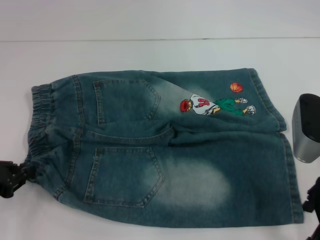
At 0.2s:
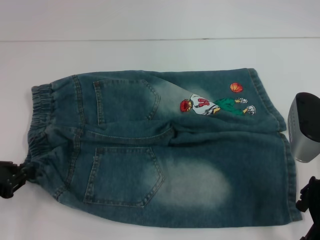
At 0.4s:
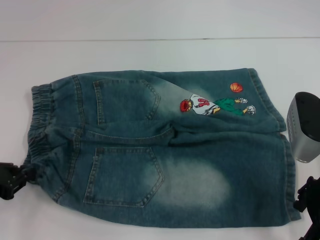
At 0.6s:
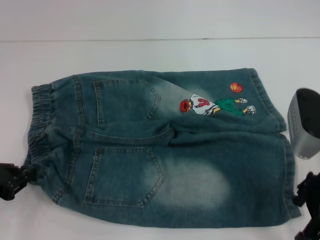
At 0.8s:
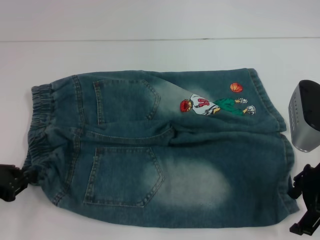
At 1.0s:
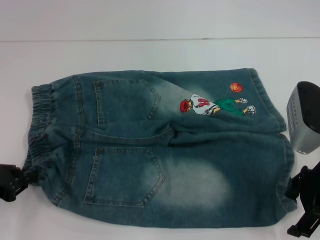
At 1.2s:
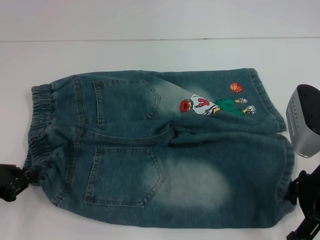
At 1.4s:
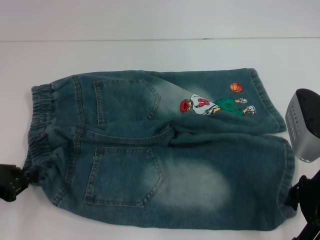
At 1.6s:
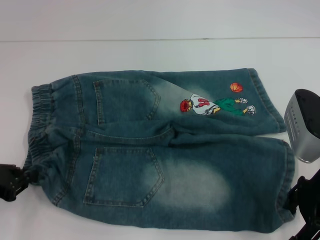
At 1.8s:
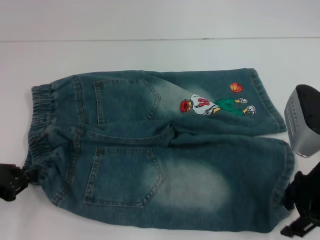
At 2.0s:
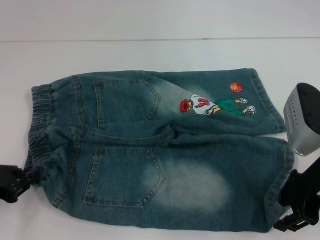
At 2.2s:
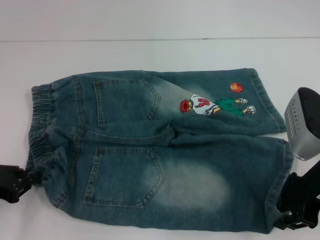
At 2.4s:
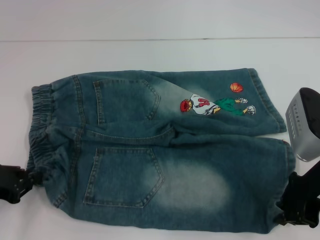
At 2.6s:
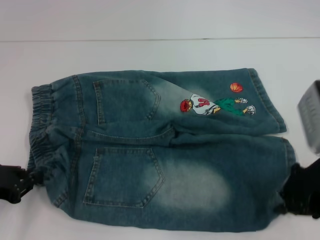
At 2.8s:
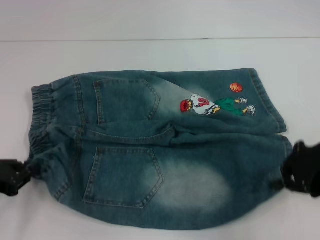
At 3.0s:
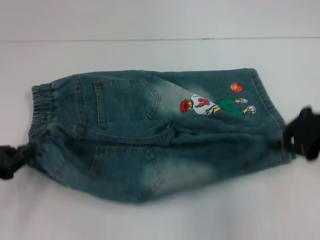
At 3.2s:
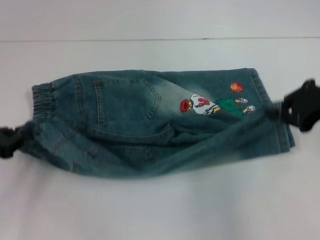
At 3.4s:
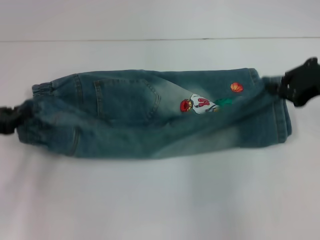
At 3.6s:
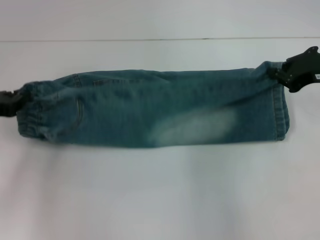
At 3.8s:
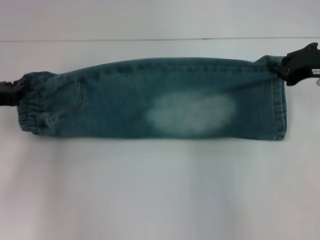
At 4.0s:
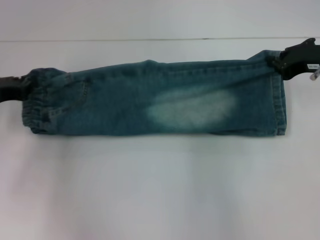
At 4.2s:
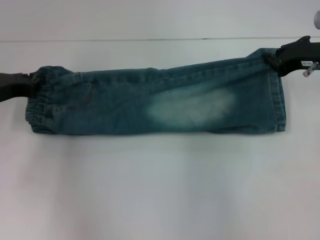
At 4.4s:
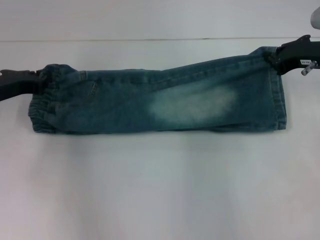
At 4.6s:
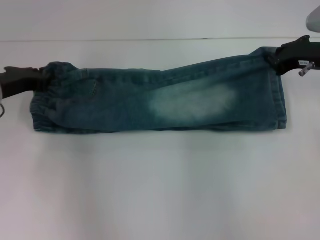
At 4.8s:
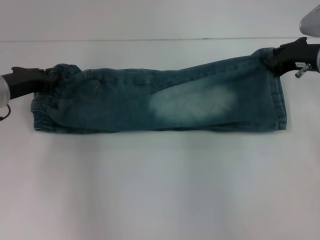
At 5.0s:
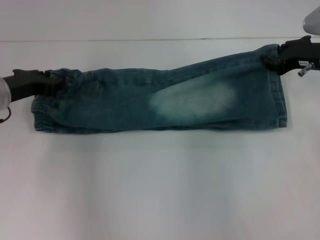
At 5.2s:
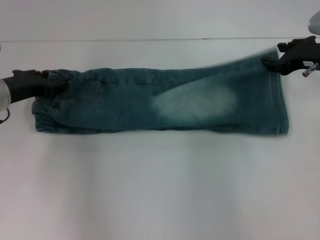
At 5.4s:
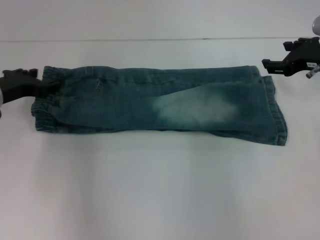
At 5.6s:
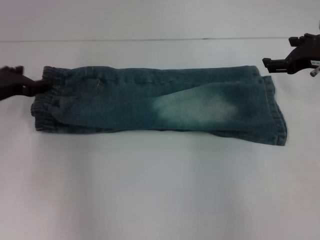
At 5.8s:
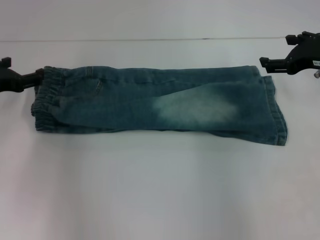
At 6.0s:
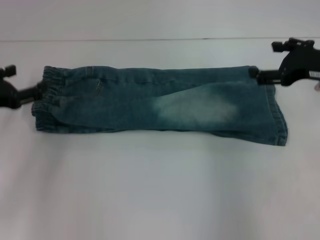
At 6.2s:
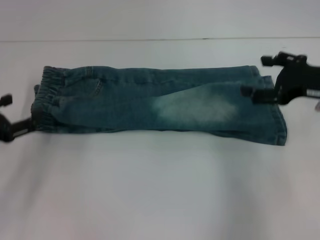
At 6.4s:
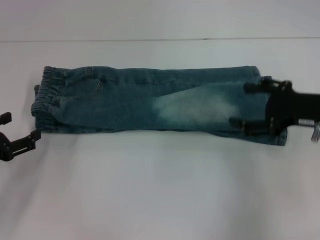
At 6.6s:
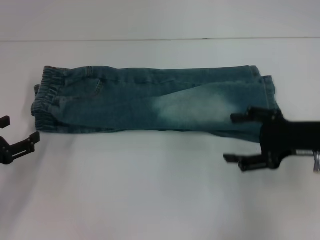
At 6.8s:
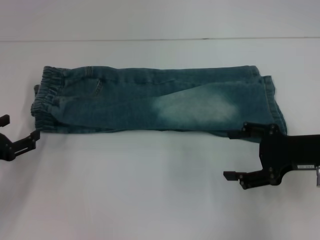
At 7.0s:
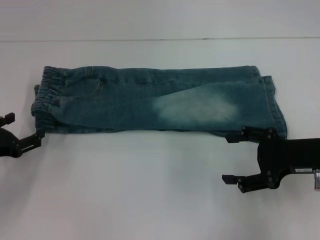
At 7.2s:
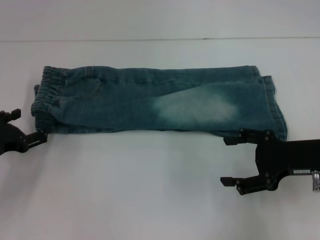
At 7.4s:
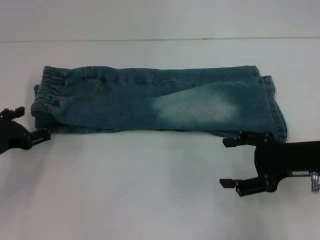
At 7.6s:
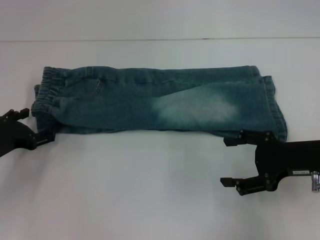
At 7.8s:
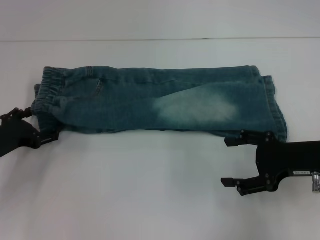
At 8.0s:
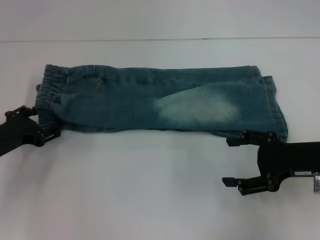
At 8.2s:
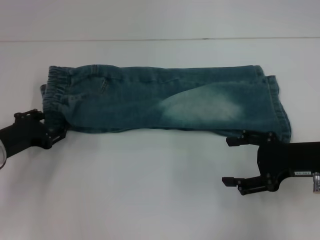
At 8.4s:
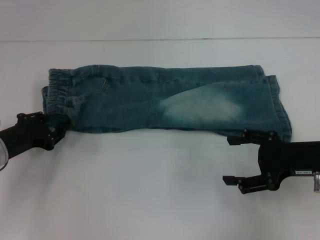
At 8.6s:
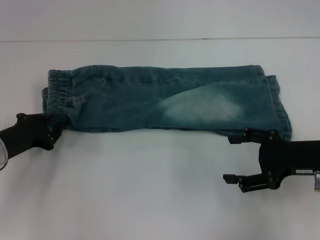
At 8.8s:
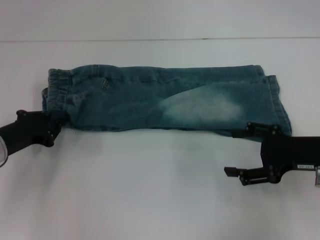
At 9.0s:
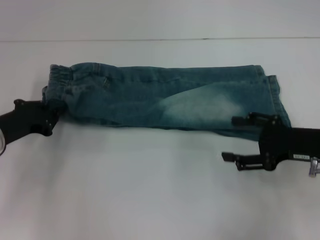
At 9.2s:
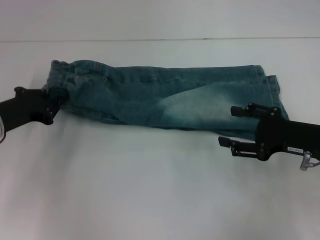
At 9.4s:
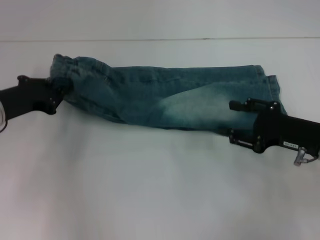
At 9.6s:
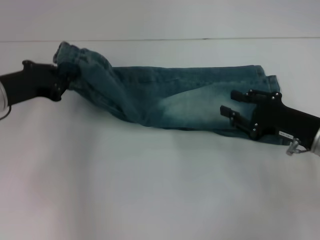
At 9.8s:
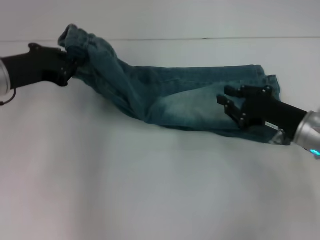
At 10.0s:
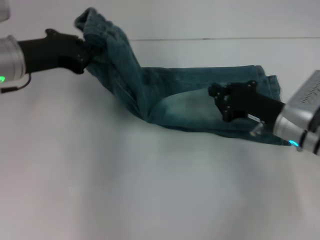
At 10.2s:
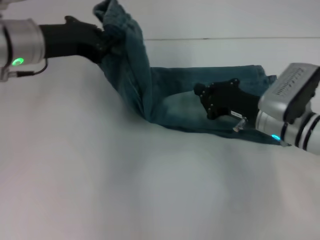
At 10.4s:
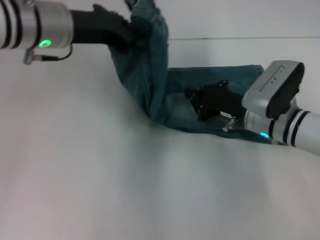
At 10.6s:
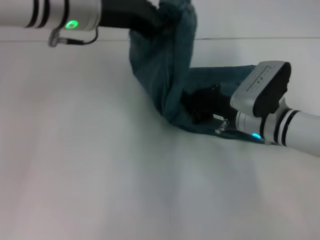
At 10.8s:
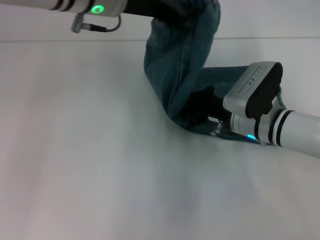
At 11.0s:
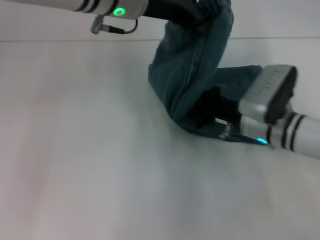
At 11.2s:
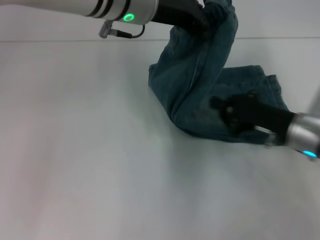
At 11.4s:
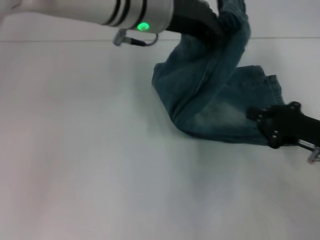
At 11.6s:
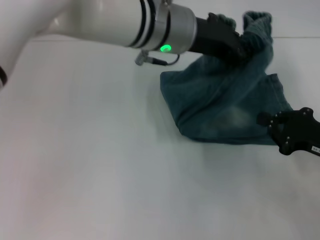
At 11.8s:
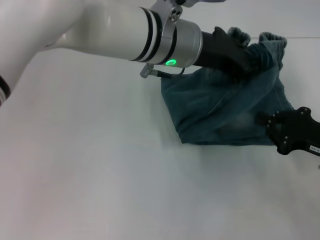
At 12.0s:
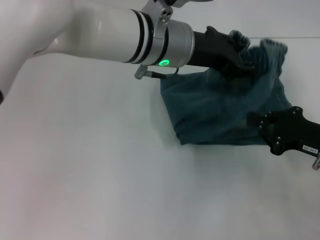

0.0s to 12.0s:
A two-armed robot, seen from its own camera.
Step, 0.0s to 2.2s: Grab the lower right pant leg with your right hand.
Step, 2.4s to 5.2s: Fold upward with your right hand.
Step, 5.4s to 8.8s: Hold the waistband with your left hand.
Step, 9.0s to 10.8s: Press the middle of the pants with your right hand.
0.0s to 1.6s: The grippers move only a little.
1.6s to 3.0s: The right gripper shifts some 5 cm to the right, and closes.
3.0s to 4.4s: The left gripper heads forward and to the right, covering about 15 cm. Meanwhile the right gripper heads forward, covering approximately 10 cm.
4.4s to 6.0s: The left gripper travels backward by about 5 cm, and opens, while the right gripper opens up.
6.0s to 7.6s: The left gripper goes some 10 cm downward. The right gripper moves backward and downward, about 10 cm.
7.6s to 9.0s: The left gripper closes.
9.0s to 10.4s: The left gripper goes some 20 cm upward, to the right and forward; the right gripper is displaced to the left and forward by approximately 10 cm, and closes its fingers.
10.4s to 12.0s: The left gripper moves to the right, some 15 cm, while the right gripper moves to the right and backward, some 15 cm.

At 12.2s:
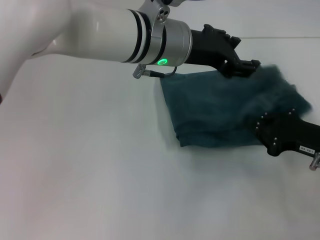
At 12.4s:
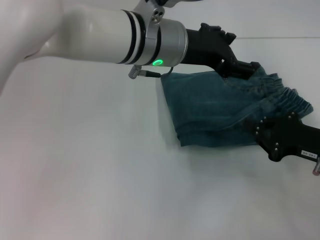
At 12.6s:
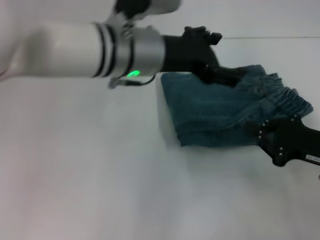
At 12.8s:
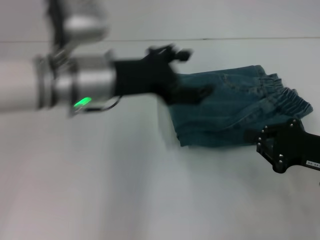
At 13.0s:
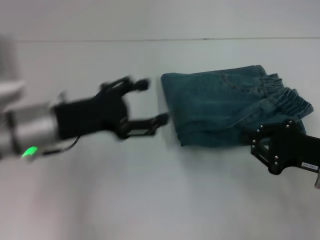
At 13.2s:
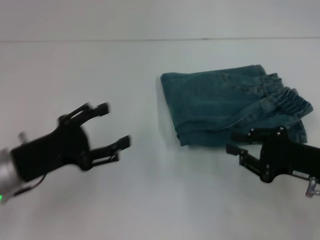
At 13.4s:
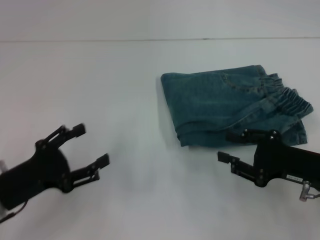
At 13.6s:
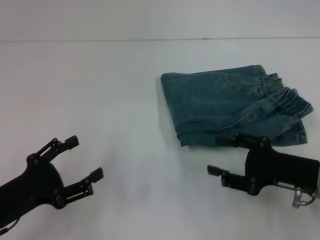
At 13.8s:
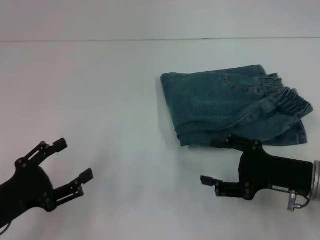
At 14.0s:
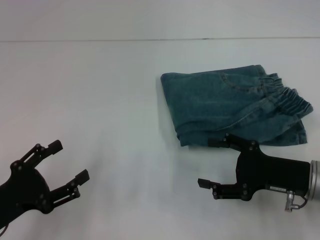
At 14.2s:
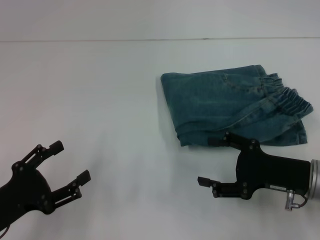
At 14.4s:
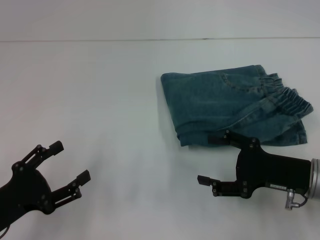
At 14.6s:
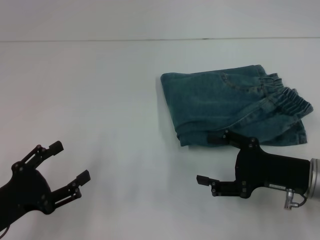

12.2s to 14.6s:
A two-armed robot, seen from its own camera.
12.2s to 13.4s: The left gripper is displaced to the left, backward and downward by roughly 35 cm, and opens up.
13.4s to 14.6s: The right gripper opens its fingers.

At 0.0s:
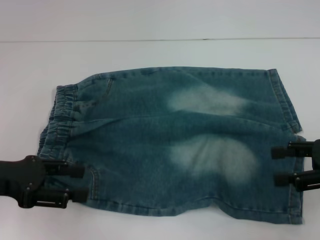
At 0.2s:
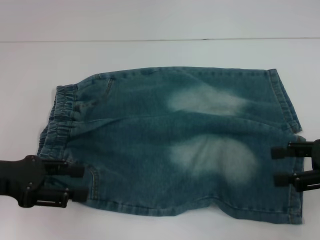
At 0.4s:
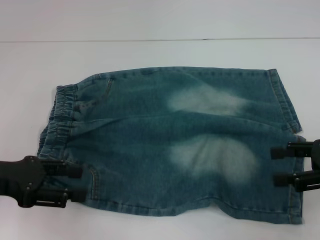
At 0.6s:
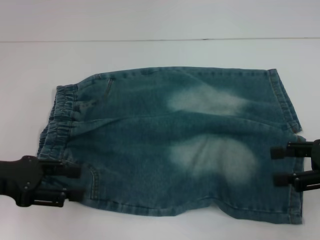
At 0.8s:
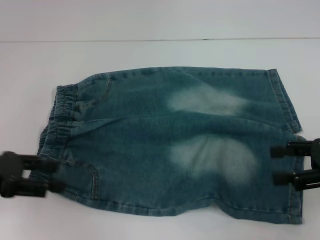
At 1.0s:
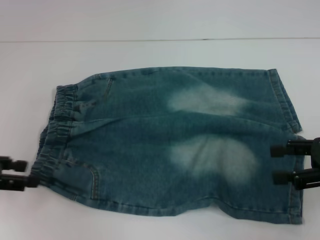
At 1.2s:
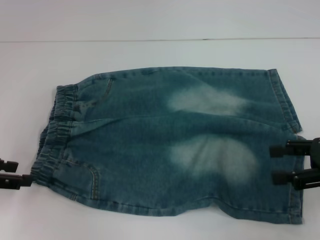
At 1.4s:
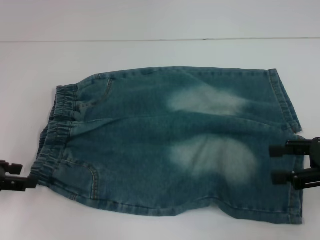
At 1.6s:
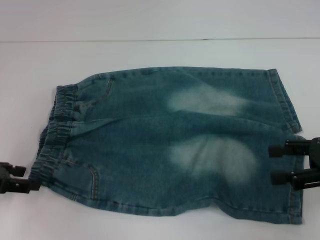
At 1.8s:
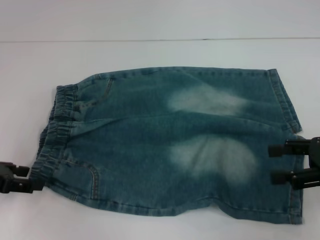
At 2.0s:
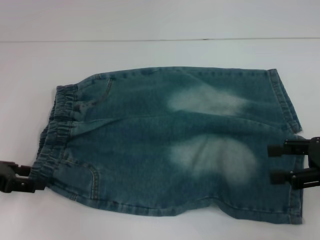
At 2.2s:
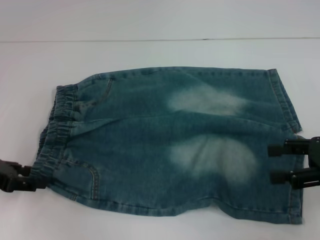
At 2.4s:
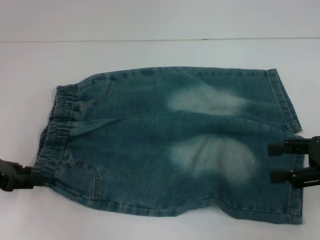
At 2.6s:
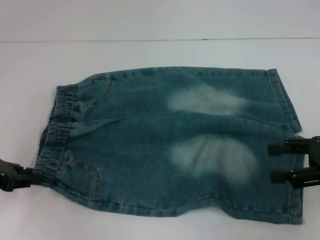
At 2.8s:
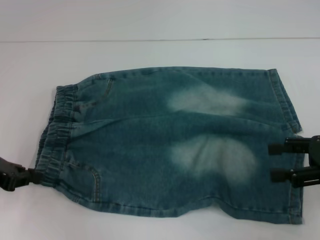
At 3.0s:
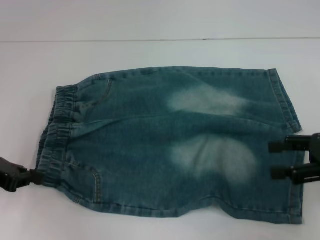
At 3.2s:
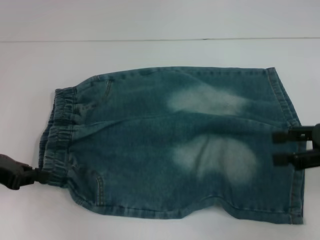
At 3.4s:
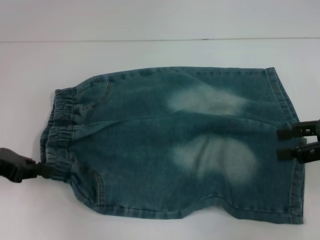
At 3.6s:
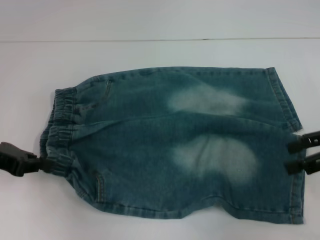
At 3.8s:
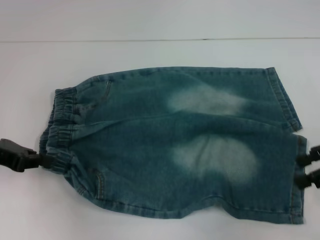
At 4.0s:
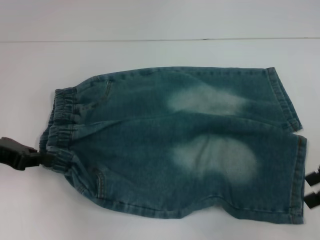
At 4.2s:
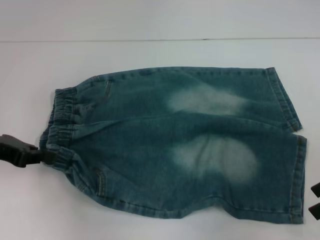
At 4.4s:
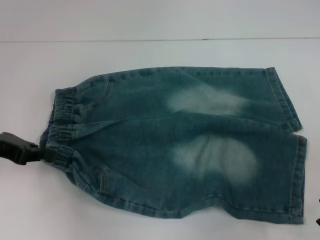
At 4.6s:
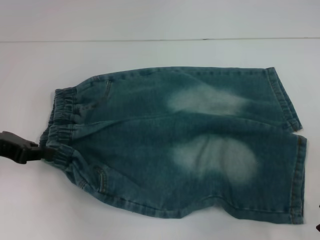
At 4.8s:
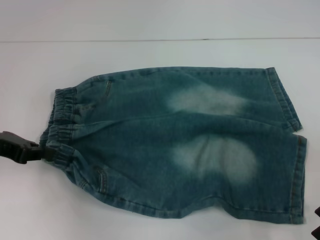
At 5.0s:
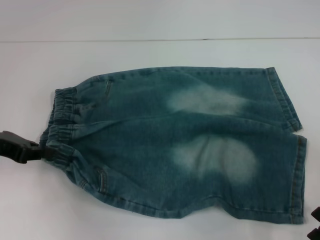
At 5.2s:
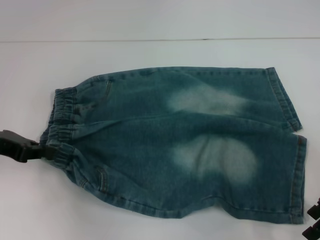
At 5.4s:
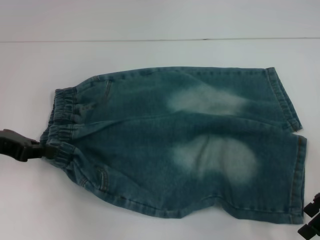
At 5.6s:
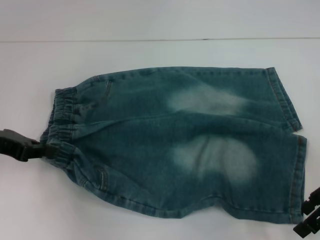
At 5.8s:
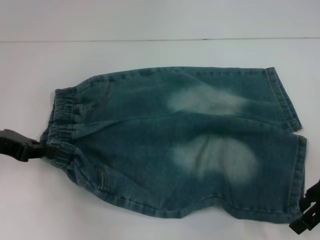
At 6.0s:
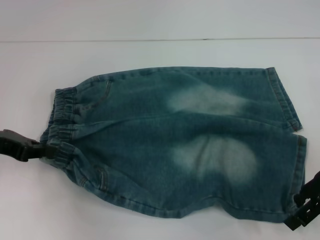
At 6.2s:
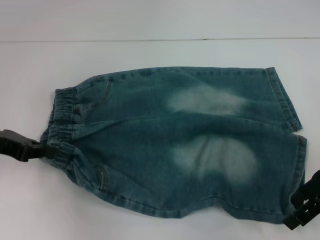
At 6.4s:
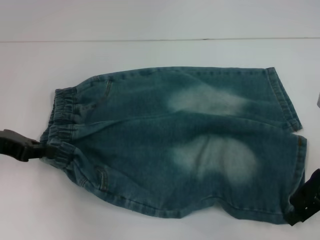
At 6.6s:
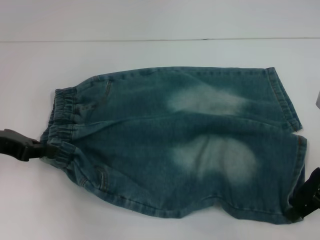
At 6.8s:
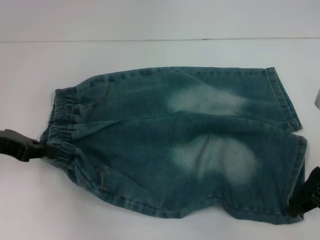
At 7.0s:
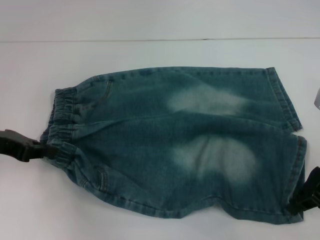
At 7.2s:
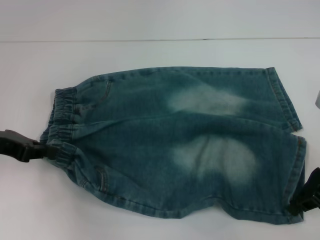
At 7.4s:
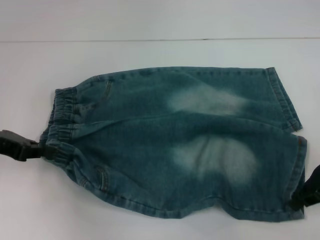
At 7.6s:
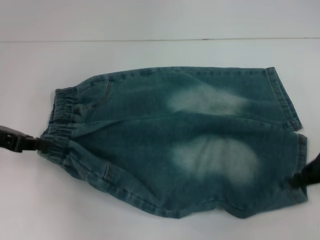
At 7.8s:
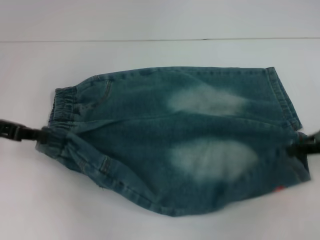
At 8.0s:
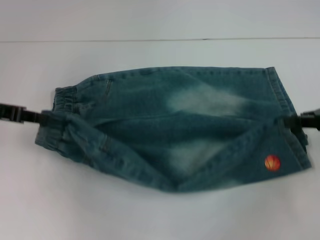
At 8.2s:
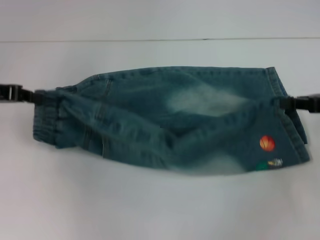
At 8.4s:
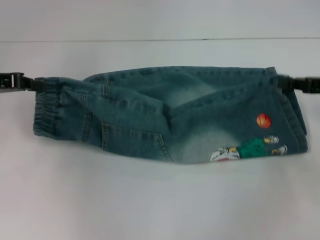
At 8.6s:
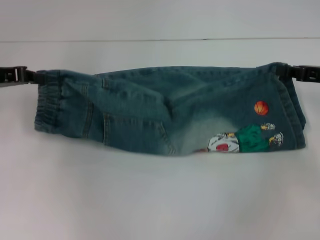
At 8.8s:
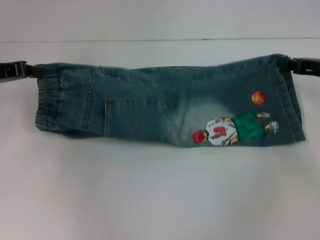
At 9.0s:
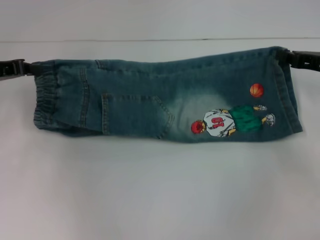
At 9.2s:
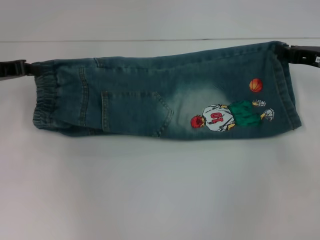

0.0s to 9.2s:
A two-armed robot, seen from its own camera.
Step, 0.0s to 3.0s: Hold the lower left waistband with your left hand.
Step, 3.2s to 7.2s: Grab the lower right pant leg with your right hand.
0.0s to 1.6s: The left gripper ends up some 5 cm from where it was.
1.6s to 3.0s: The left gripper closes up.
4.6s to 6.2s: The right gripper shifts by roughly 5 cm.
6.2s to 7.6s: The right gripper closes its fingers.
7.6s to 9.2s: The grippers both shift forward by some 5 cm.
